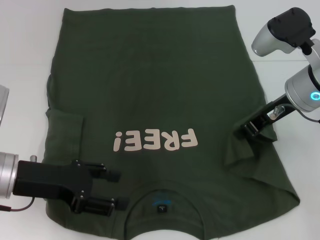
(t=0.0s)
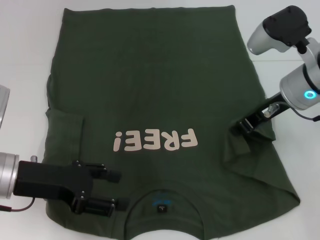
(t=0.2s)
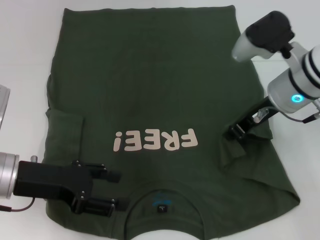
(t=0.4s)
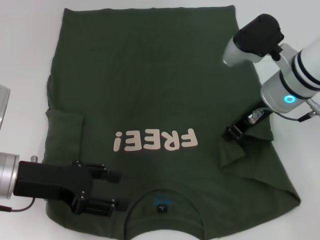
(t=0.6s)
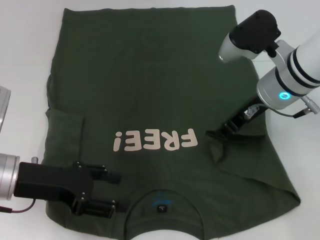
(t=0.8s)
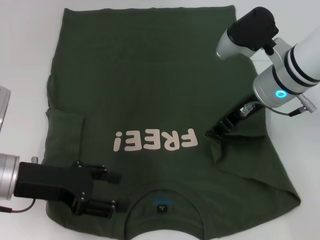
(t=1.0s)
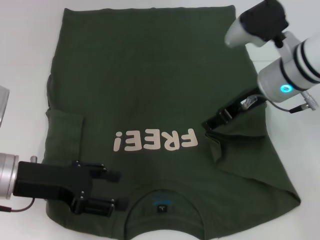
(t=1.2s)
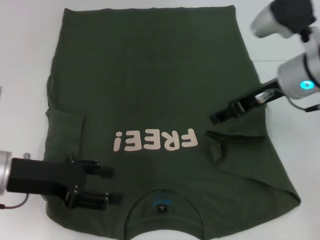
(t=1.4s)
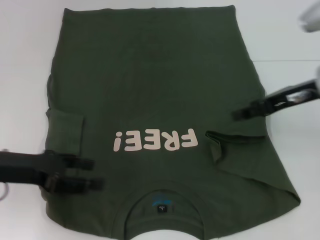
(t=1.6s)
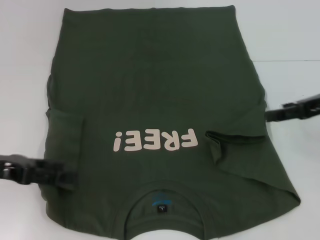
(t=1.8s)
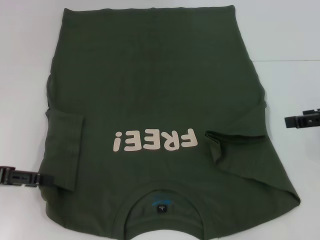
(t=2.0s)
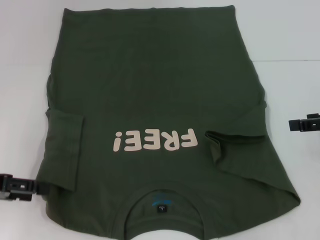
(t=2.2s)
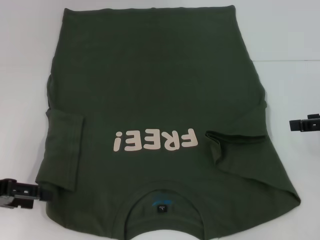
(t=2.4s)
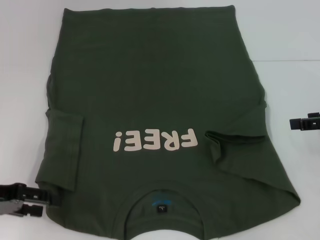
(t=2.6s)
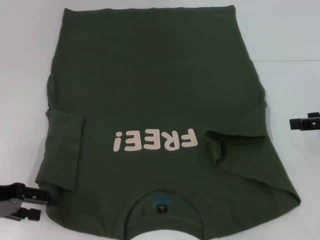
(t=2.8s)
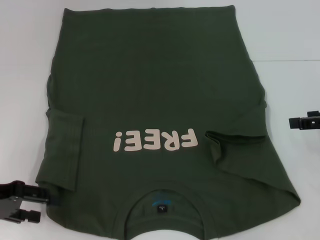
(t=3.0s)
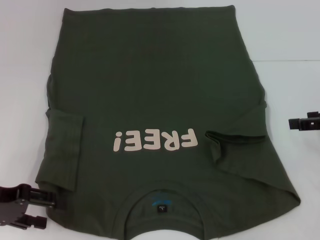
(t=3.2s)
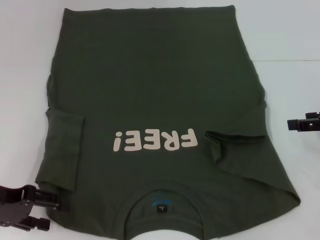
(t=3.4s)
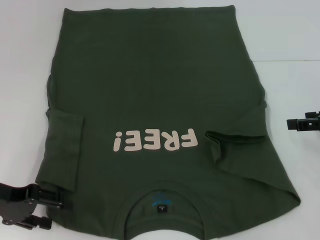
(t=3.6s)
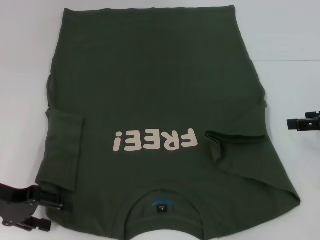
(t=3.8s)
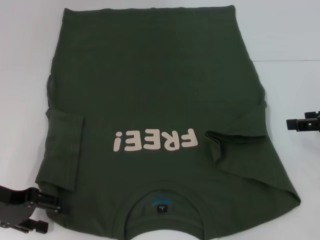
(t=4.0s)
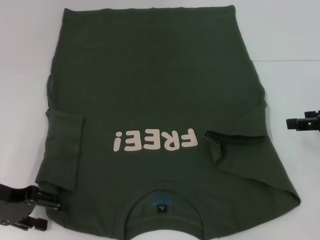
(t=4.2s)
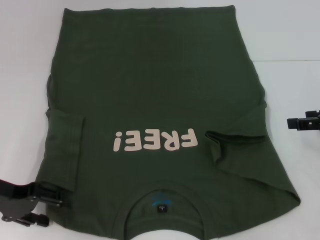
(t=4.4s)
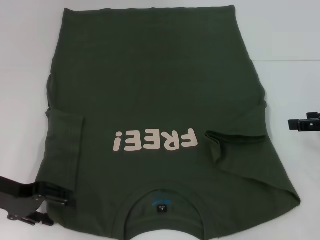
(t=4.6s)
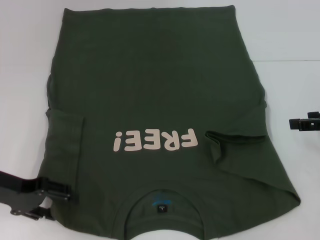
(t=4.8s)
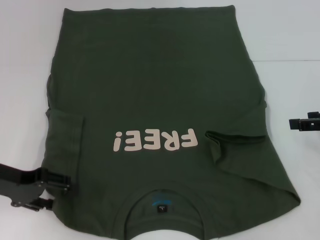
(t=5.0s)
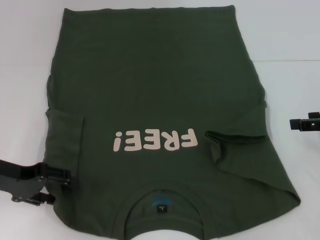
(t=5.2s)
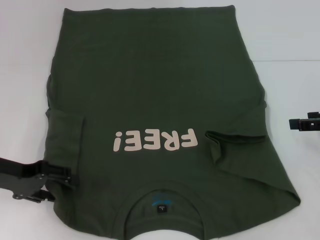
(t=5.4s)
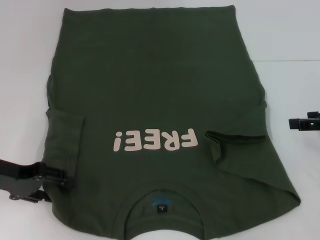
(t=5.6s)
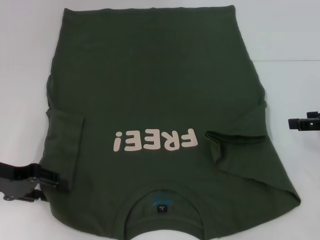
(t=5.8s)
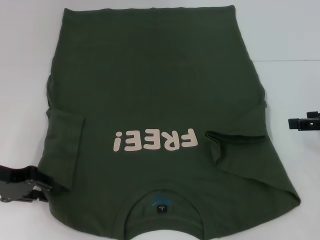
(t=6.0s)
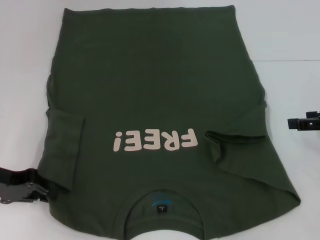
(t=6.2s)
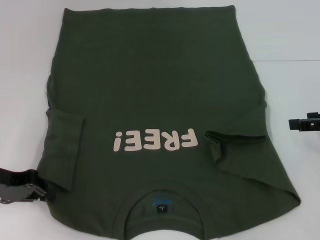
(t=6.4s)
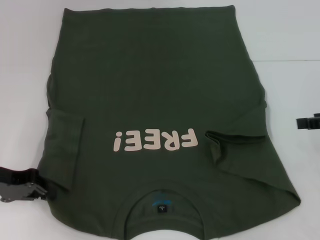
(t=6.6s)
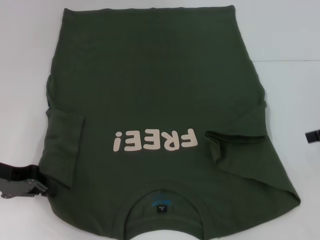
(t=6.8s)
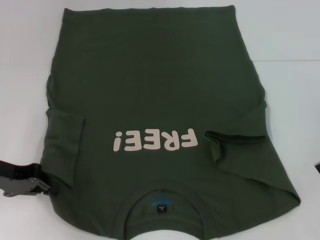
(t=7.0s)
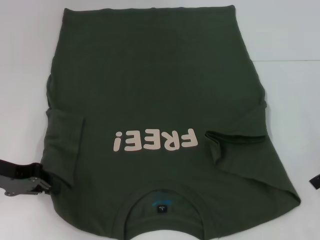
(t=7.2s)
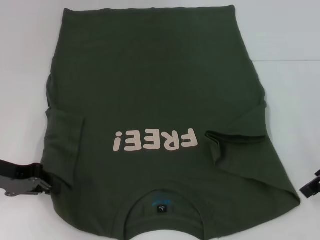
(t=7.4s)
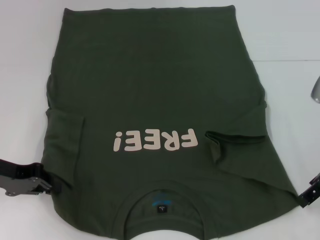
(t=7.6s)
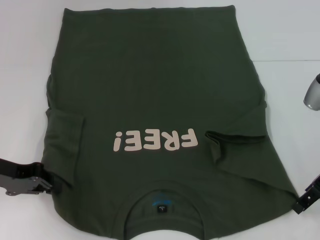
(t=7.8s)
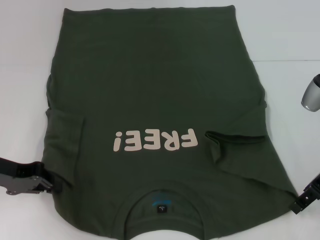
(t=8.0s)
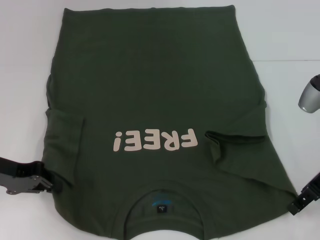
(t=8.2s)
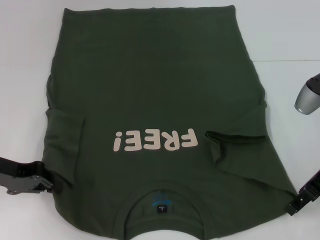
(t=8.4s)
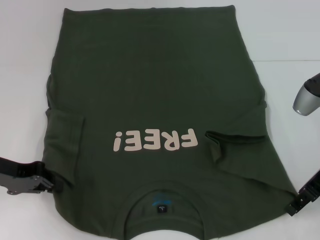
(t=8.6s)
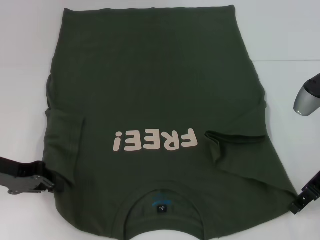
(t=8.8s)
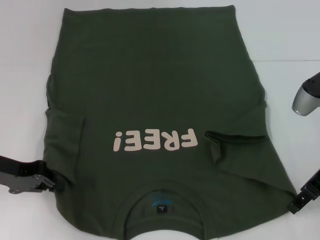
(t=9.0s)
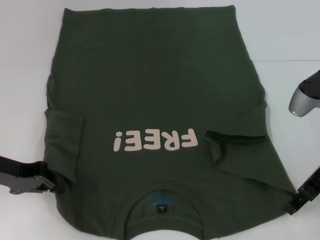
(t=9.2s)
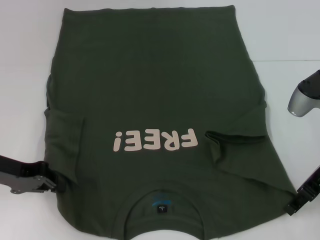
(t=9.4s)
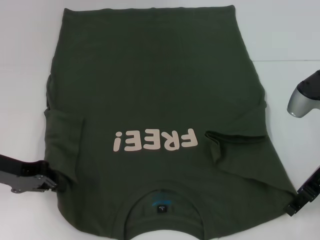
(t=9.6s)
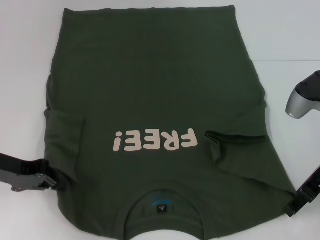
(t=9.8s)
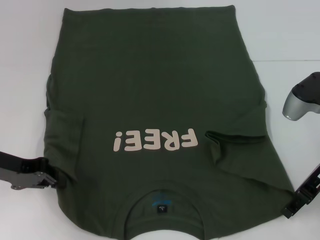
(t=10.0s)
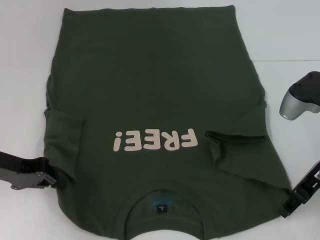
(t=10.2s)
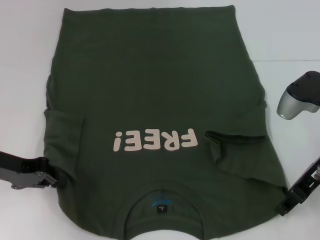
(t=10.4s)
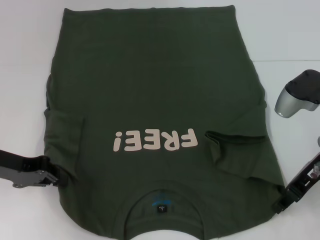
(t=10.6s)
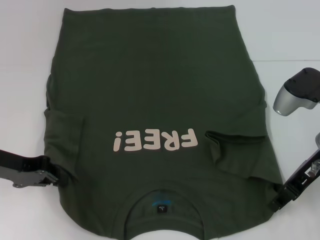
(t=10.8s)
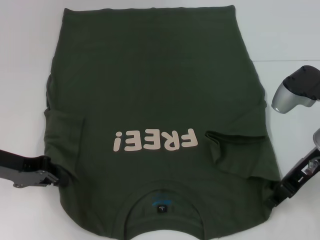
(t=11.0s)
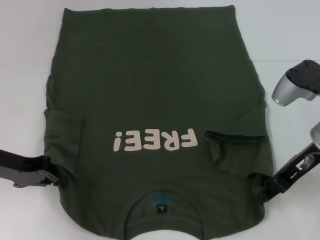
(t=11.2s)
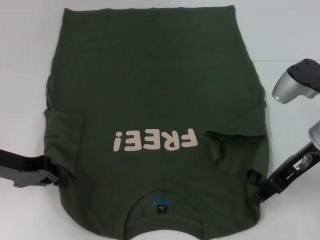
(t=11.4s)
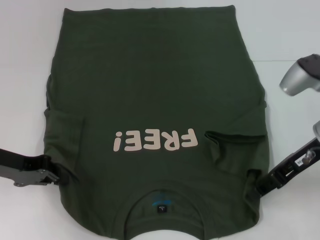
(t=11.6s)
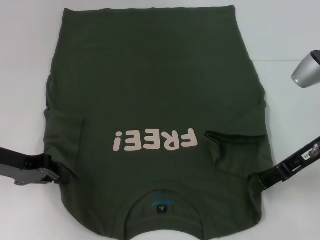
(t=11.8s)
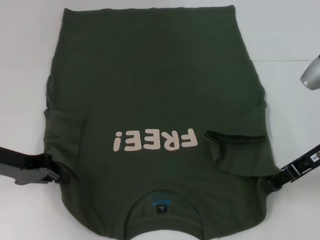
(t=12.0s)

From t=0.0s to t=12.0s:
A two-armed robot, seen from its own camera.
Step, from t=1.2s to t=6.8s: Grab the bottom left corner with your left hand.
From t=0.0s to t=1.6s: The right gripper opens.
From t=1.6s to t=3.0s: The left gripper travels to the left by about 5 cm; the right gripper moves to the right, roughly 10 cm.
From t=3.0s to t=6.0s: There are only small adjustments of the grippers.
From t=6.0s to t=7.6s: The right gripper travels to the left by approximately 5 cm. The left gripper closes up.
From t=7.6s to t=12.0s: The grippers stay close to where they were, moving slightly.

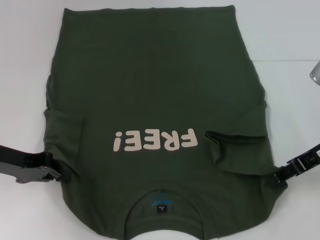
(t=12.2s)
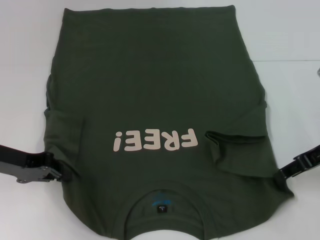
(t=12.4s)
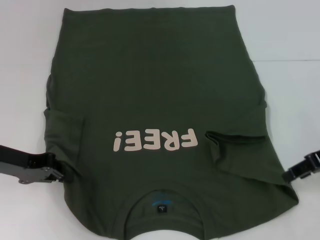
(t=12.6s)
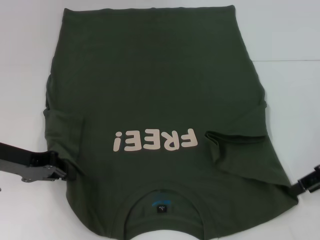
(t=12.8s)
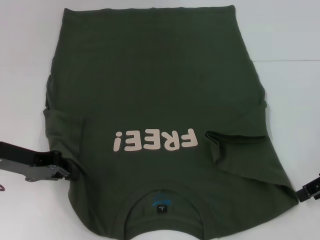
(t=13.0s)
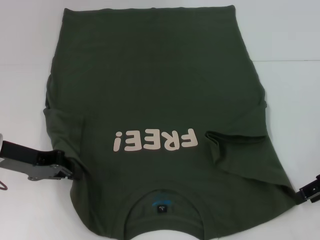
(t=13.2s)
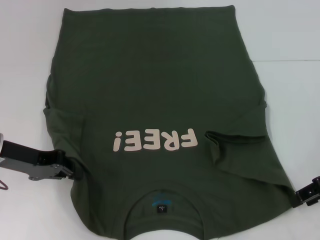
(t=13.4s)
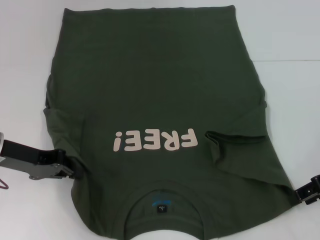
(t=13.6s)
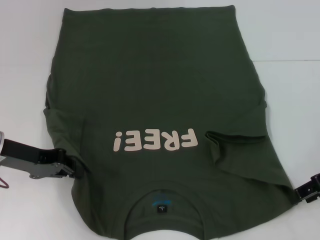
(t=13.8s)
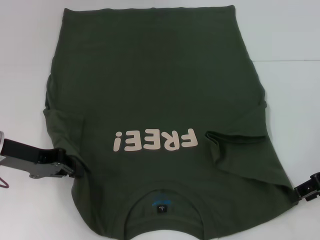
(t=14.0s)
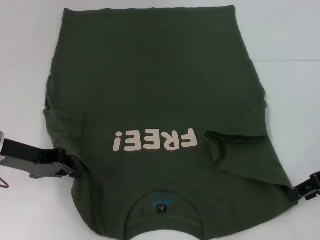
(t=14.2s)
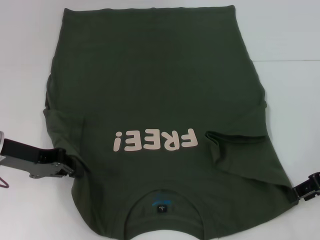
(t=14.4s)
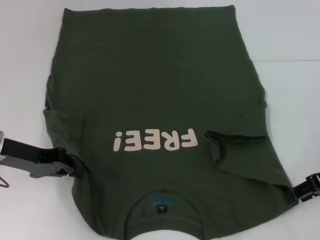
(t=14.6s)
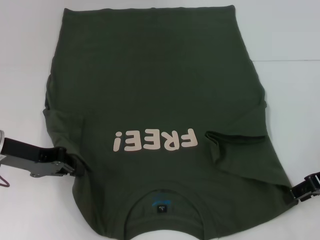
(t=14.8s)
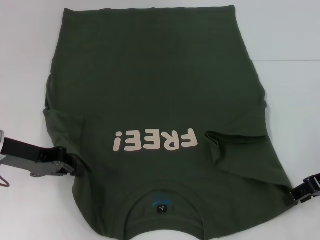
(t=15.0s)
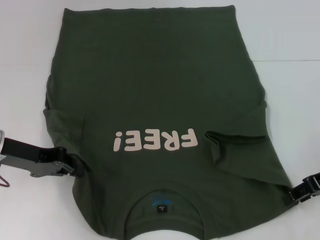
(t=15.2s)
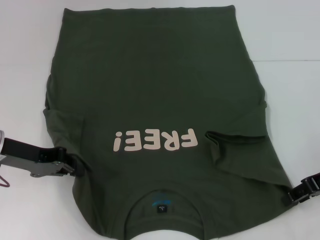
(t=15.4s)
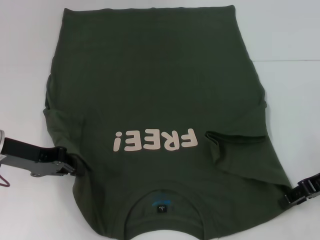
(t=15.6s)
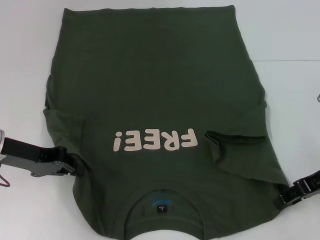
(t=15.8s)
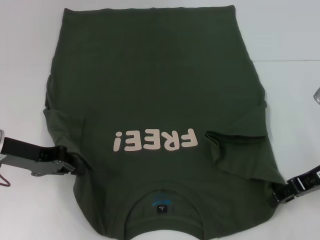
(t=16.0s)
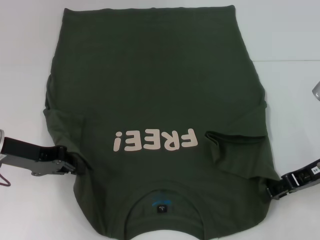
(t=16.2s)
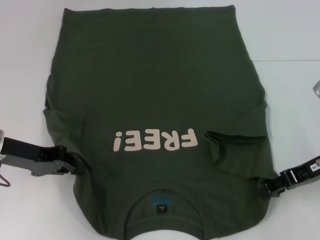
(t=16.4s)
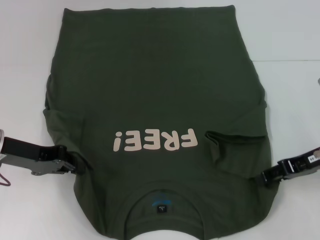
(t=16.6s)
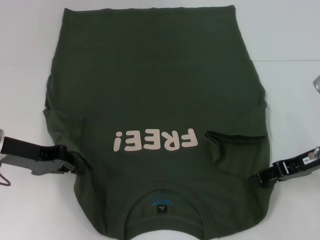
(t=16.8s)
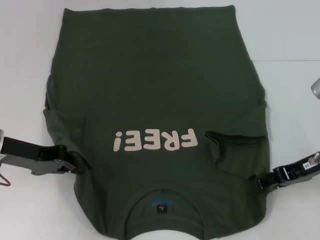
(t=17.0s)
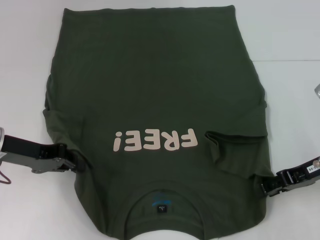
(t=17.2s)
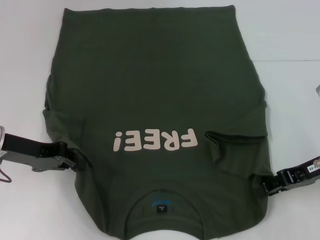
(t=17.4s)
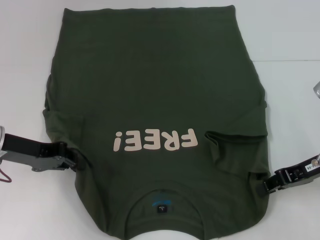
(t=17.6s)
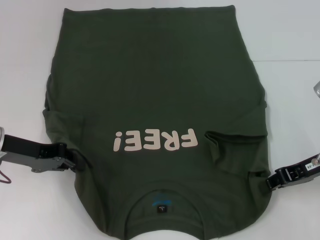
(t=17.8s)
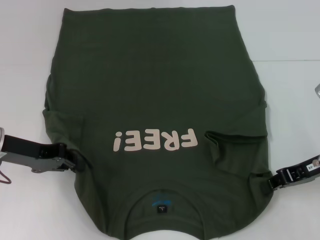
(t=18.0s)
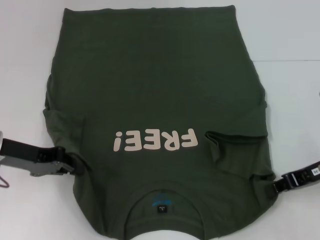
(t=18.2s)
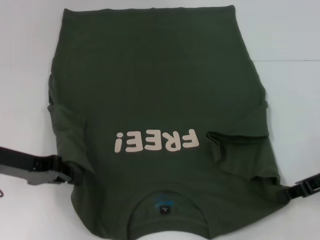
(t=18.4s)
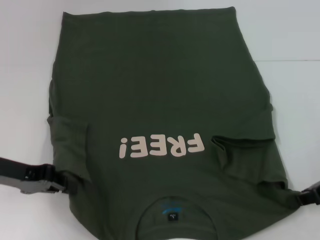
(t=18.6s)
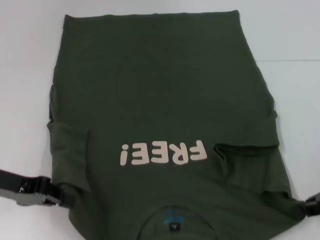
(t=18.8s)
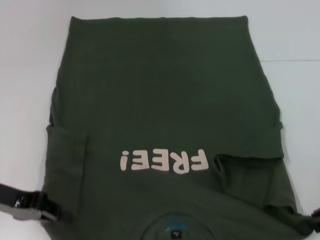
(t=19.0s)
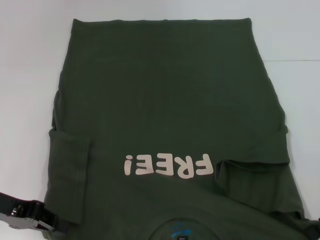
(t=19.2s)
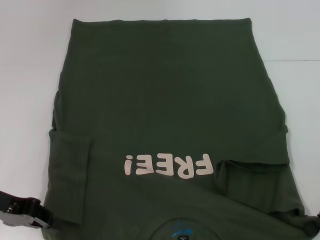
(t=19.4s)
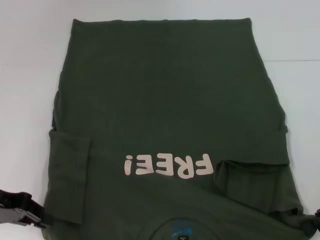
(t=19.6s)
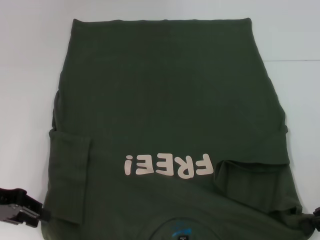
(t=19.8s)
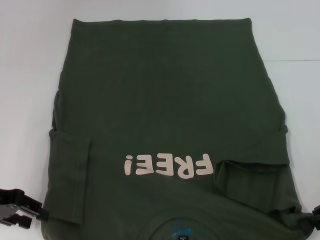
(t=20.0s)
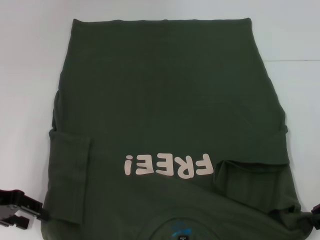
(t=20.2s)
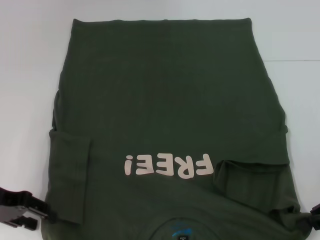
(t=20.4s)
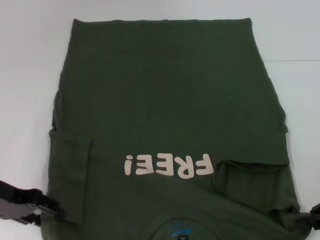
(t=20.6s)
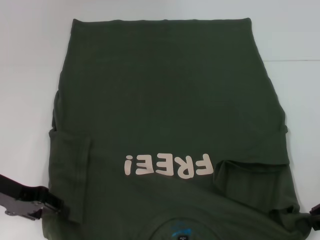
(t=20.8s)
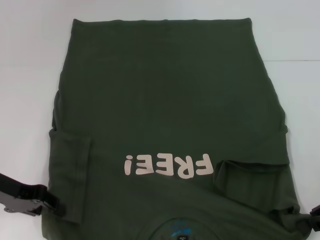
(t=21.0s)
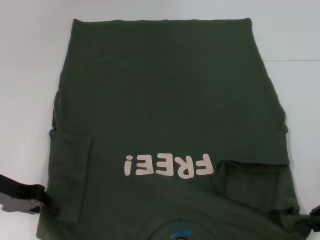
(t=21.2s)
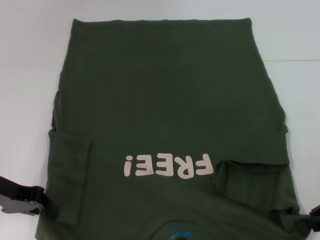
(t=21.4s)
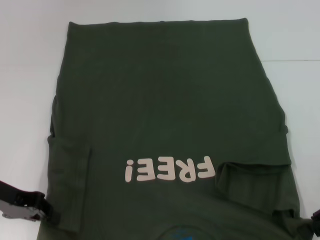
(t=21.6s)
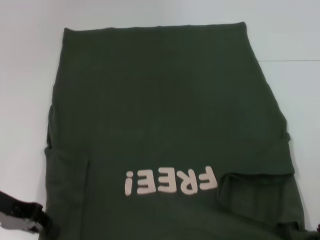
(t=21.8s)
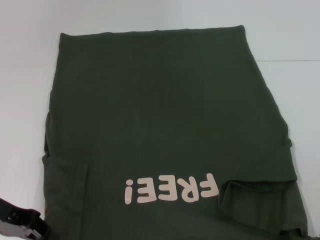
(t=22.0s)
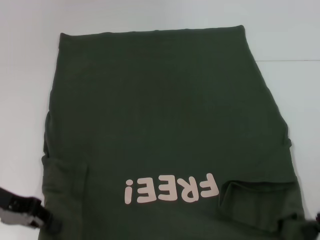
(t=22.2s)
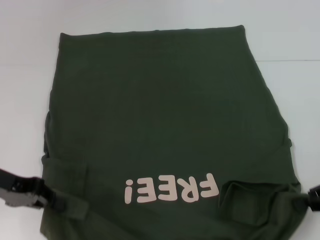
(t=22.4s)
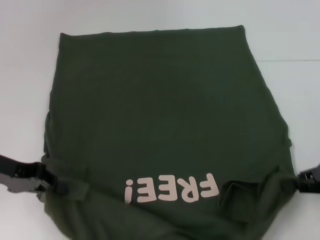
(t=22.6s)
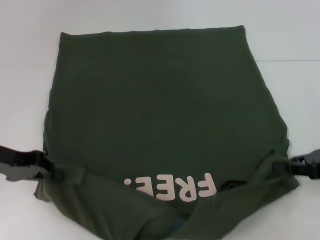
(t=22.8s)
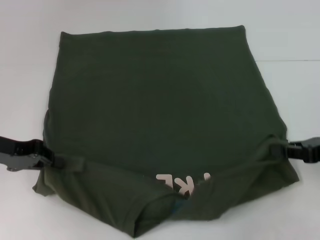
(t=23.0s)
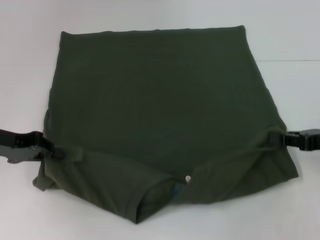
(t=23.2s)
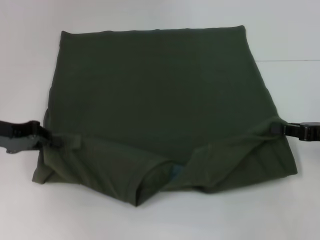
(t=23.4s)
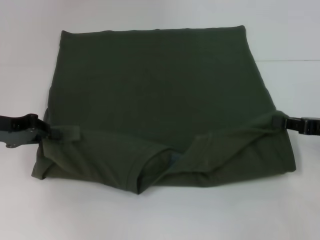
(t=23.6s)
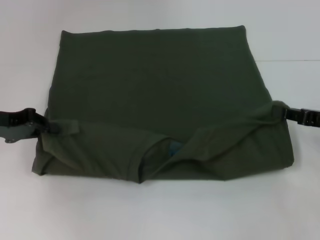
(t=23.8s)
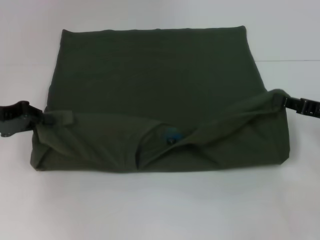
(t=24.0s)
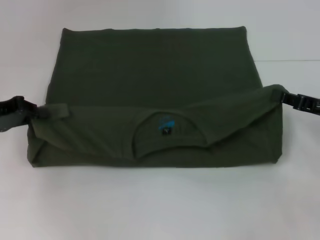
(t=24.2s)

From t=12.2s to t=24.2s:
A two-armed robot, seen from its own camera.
Step, from t=12.2s to t=18.2s: Grab the bottom right corner with your right hand.
From t=12.2s to t=13.8s: The right gripper shifts by approximately 5 cm.
From t=13.8s to t=16.6s: The grippers move only a little.
From t=16.6s to t=18.2s: The right gripper closes its fingers.
From t=18.2s to t=19.8s: The right gripper changes place by roughly 5 cm. Meanwhile the left gripper ends up roughly 5 cm from where it was.
From t=19.8s to t=22.6s: The grippers move only a little.
From t=22.6s to t=24.2s: The right gripper shifts by about 5 cm.
